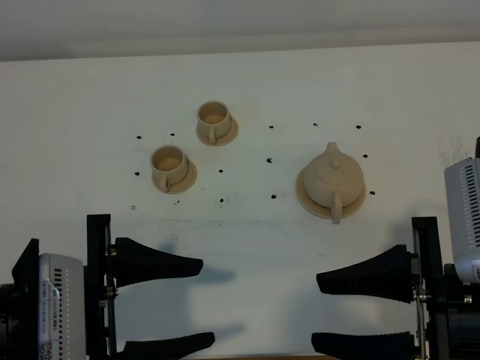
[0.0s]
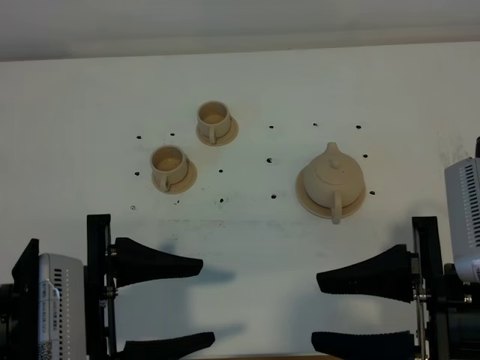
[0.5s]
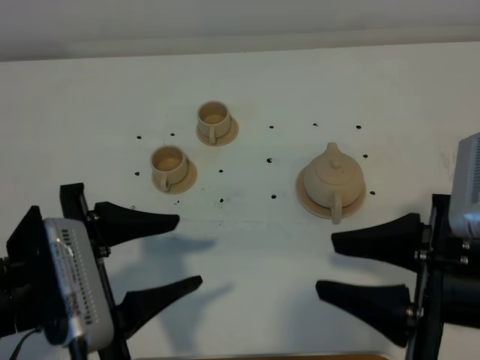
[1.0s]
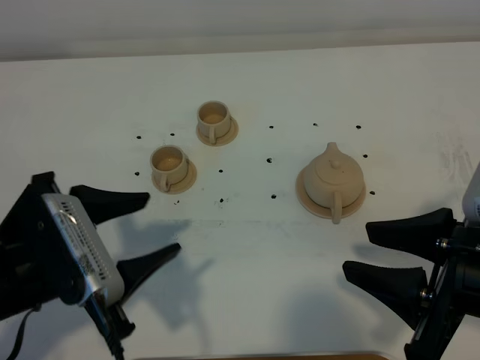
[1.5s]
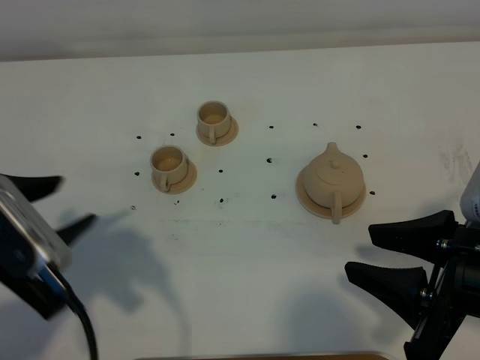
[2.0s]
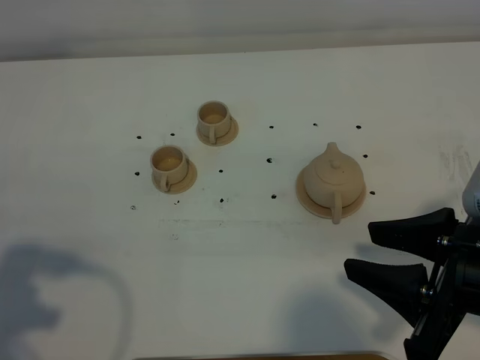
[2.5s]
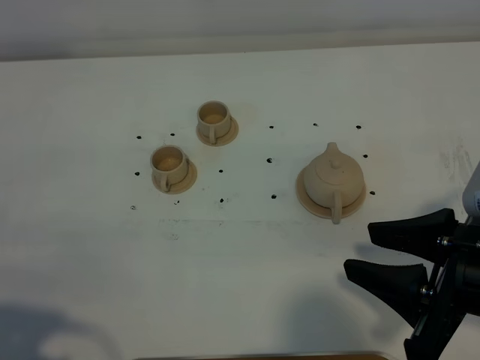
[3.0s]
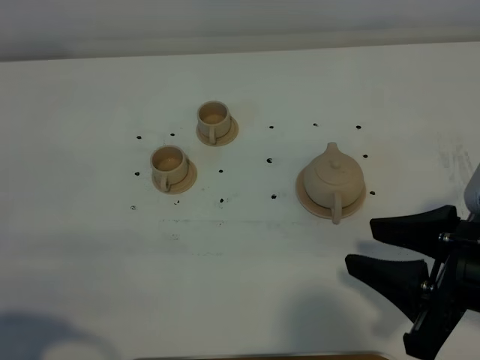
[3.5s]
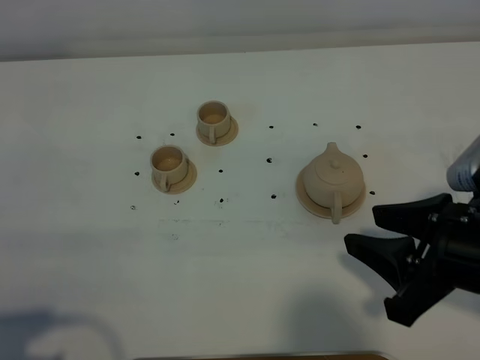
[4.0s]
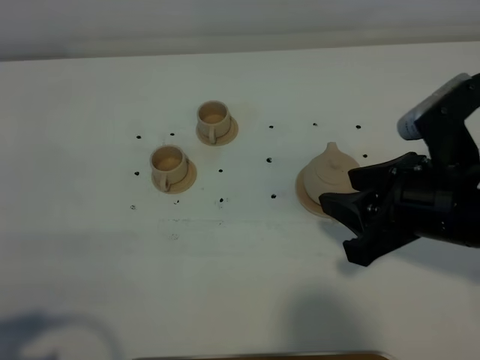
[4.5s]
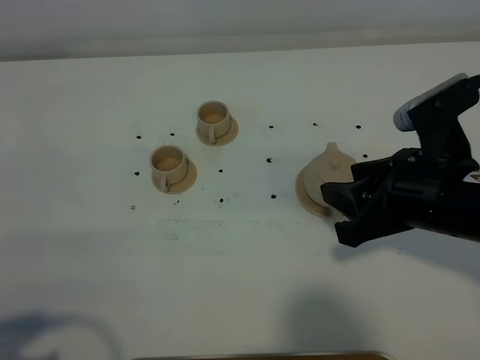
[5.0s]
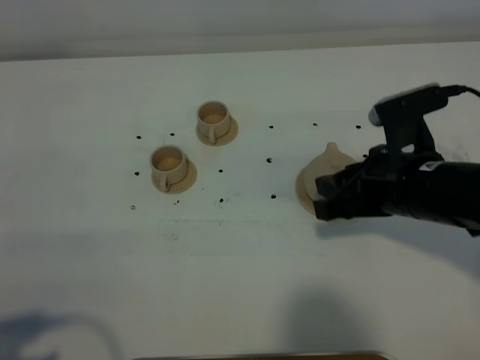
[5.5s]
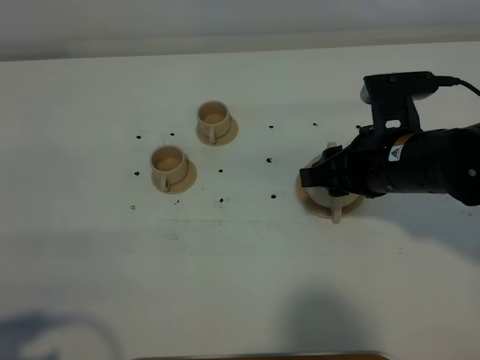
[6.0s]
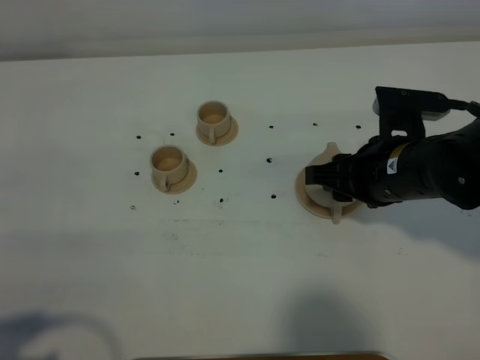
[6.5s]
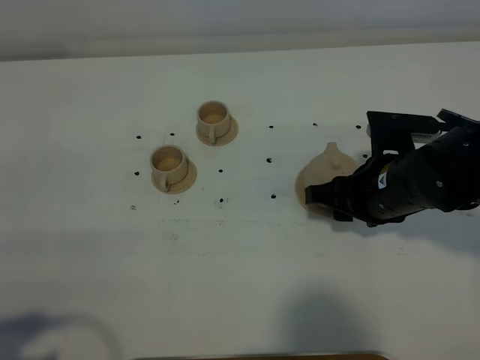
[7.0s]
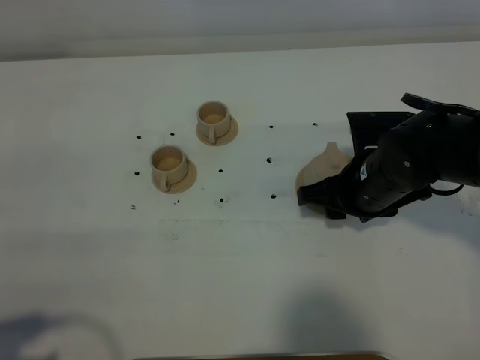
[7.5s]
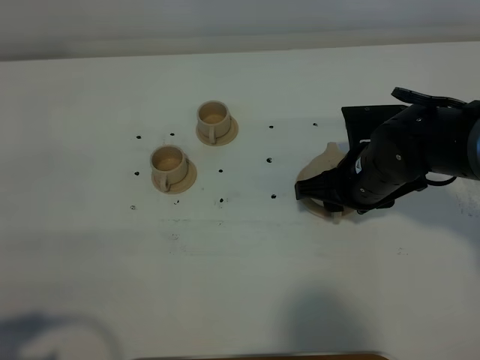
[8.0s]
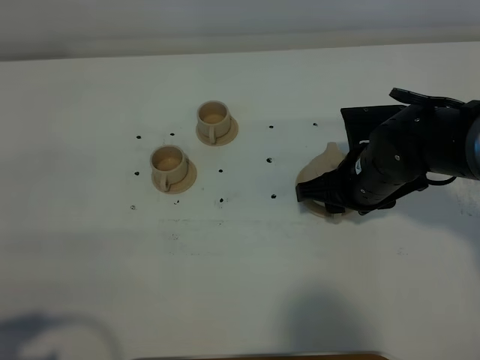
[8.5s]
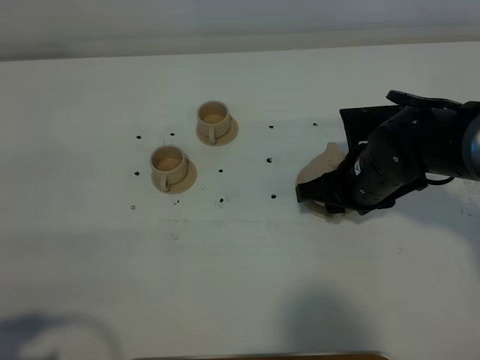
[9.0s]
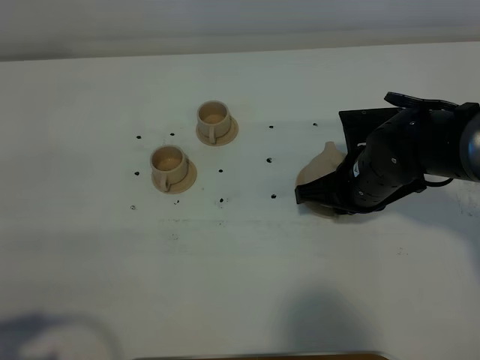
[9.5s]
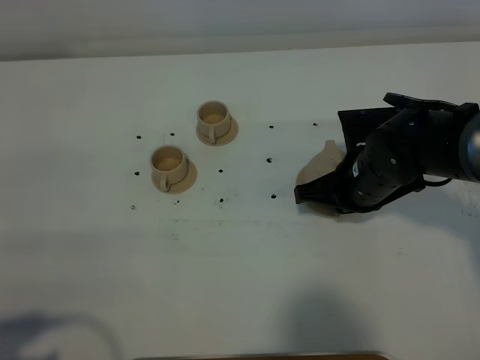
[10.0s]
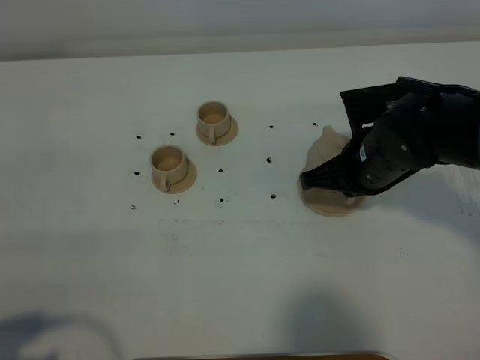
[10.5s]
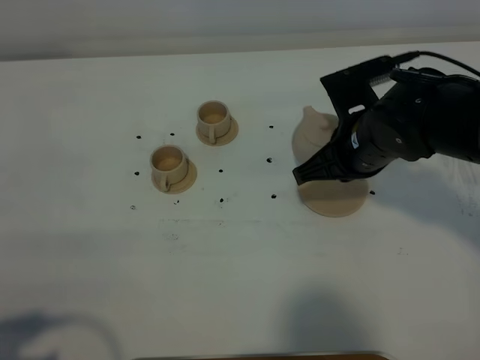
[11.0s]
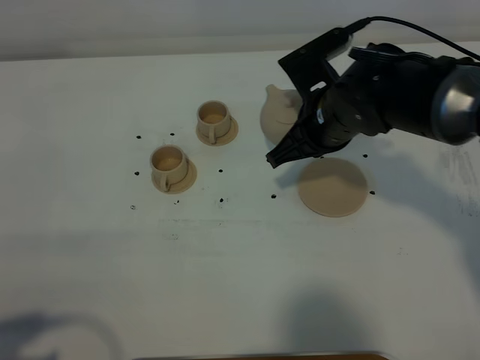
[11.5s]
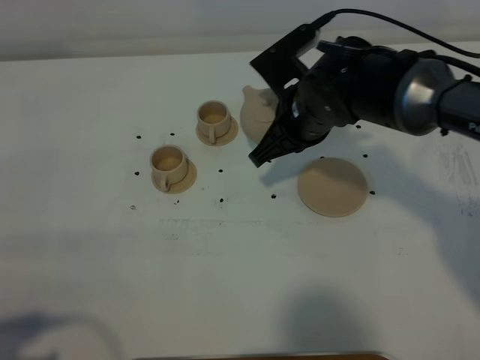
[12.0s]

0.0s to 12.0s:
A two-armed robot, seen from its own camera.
Task of the whole recording: grasp the brown teapot and pour the tea into the two brown teacups one by one, put the brown teapot back in its original place.
Step, 0.0s to 10.0s: Pick up the teapot with the right gripper.
0.0s to 2.0s: The left gripper goes some 5 cm to the left, and closes its fingers.
2.0s to 4.0s: The left gripper goes about 15 cm backward and to the left, and closes.
4.0s to 6.0s: The right gripper shifts some 15 cm forward.
6.0s to 8.0s: The right gripper goes roughly 5 cm downward.
8.0s to 10.0s: The right gripper closes.
10.0s to 12.0s: The right gripper shifts roughly 10 cm to the left, upward and forward.

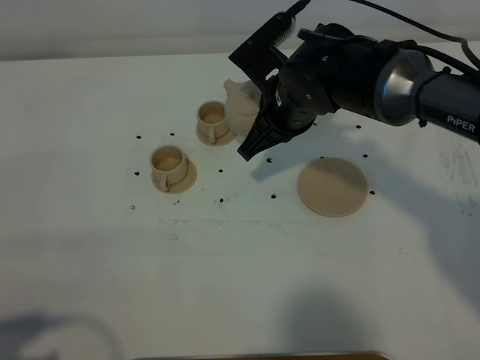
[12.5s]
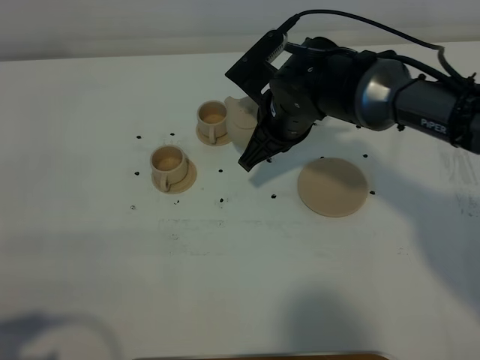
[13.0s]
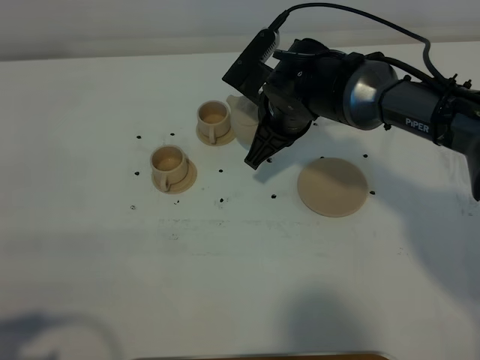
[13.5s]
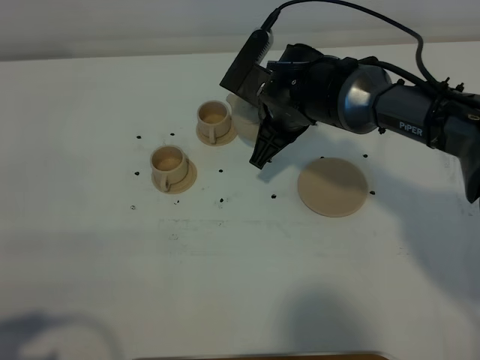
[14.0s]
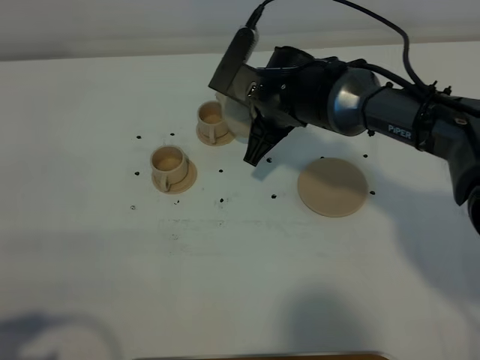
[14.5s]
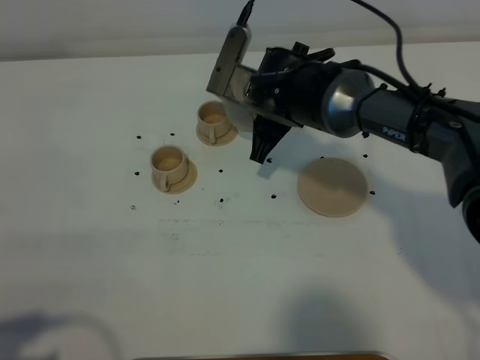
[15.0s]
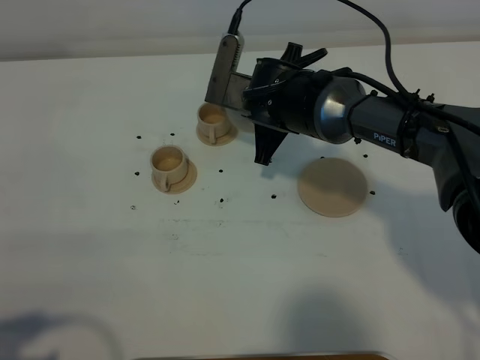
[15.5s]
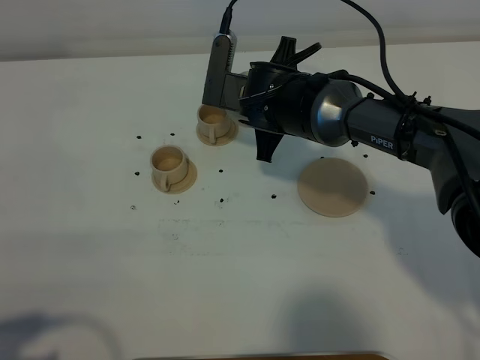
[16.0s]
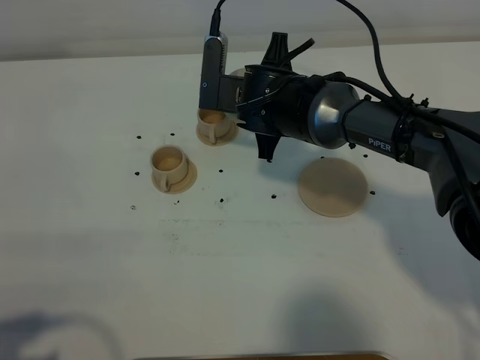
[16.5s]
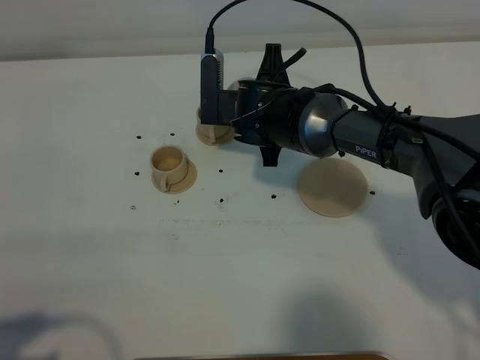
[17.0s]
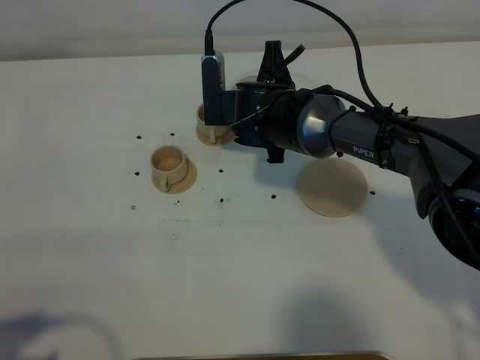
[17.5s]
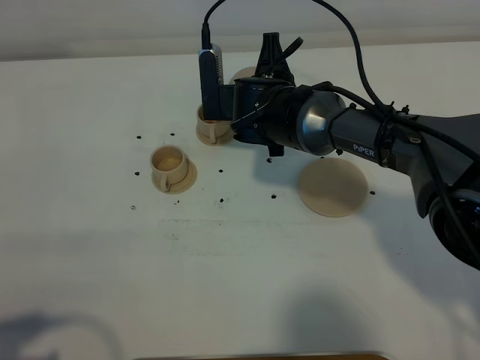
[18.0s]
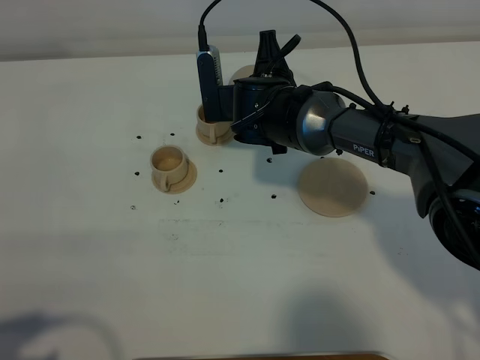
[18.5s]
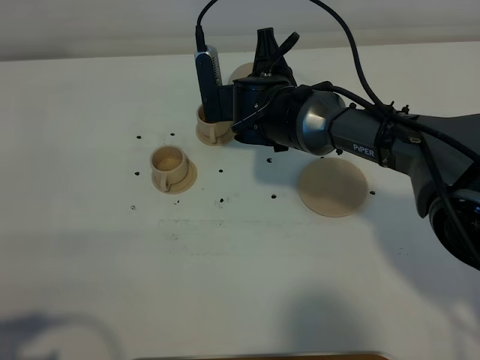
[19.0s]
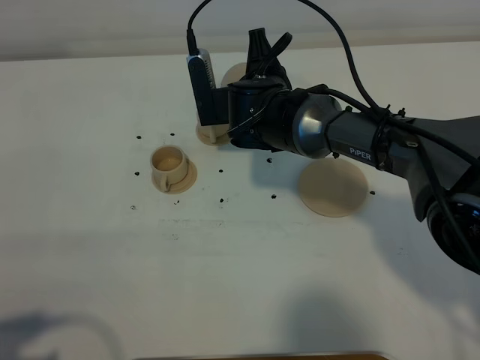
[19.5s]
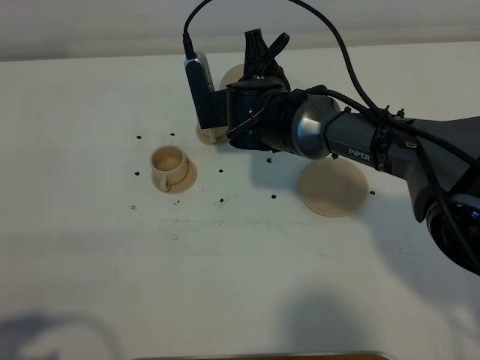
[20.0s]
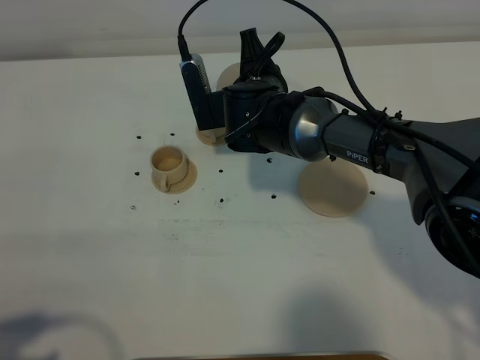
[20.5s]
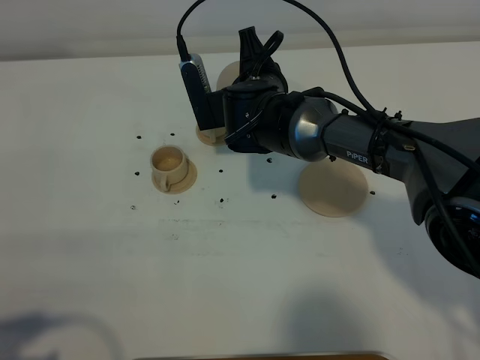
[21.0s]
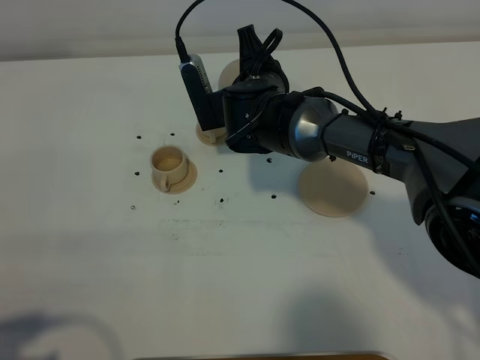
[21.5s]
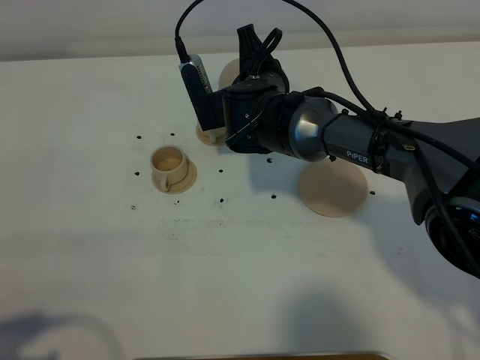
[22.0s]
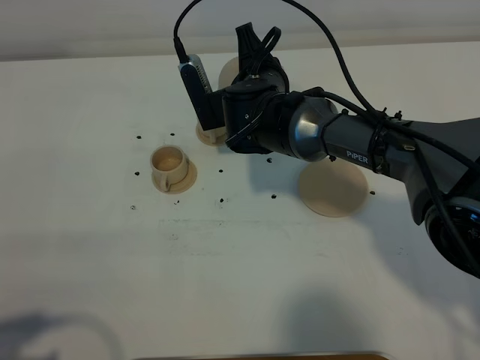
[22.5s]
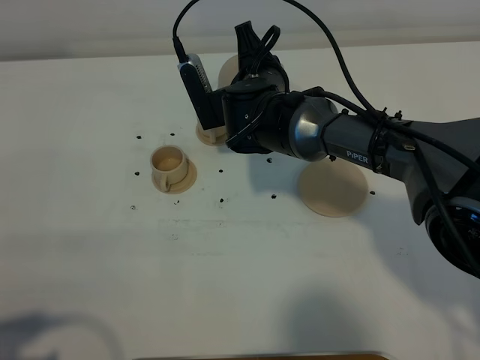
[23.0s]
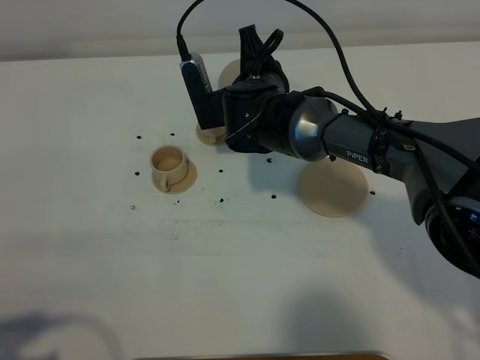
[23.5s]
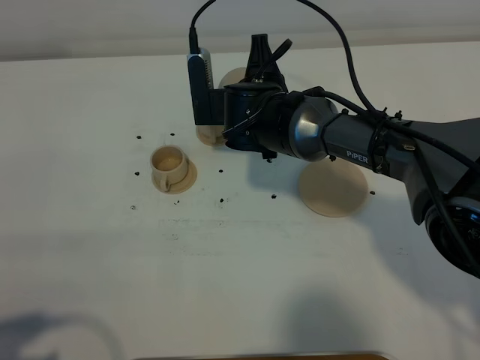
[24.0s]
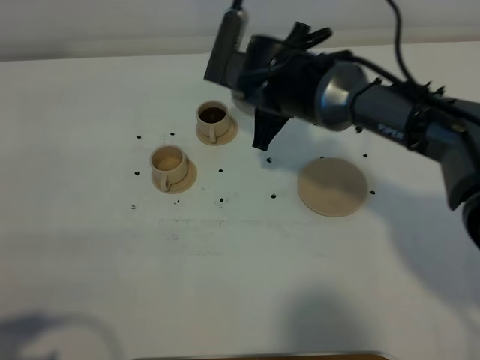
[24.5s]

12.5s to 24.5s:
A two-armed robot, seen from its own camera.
Task of the whole recording: grasp the brown teapot and pour the tea into the two brown teacups one by one, put the brown teapot back in its original place.
12.5s to 14.5s: The grippers stay close to where they were, moving slightly.
16.5s to 18.5s: The grippers make only small movements.
18.5s to 22.5s: There are only small adjustments of the grippers.

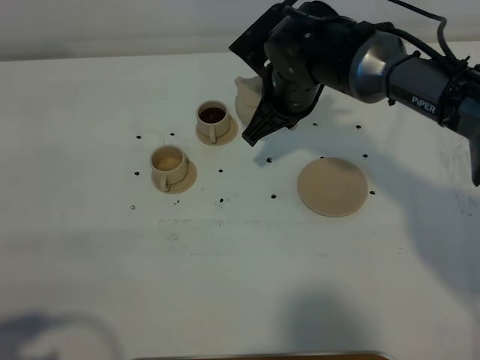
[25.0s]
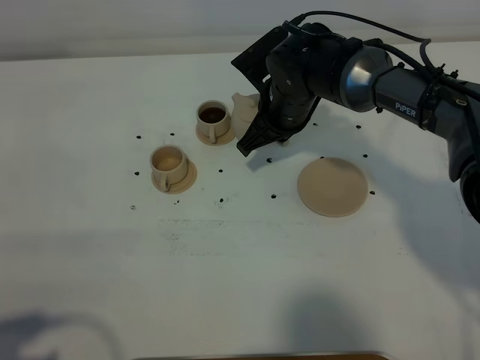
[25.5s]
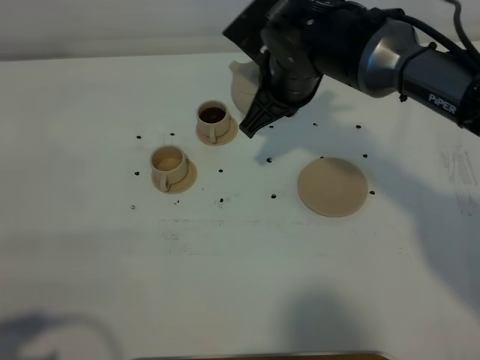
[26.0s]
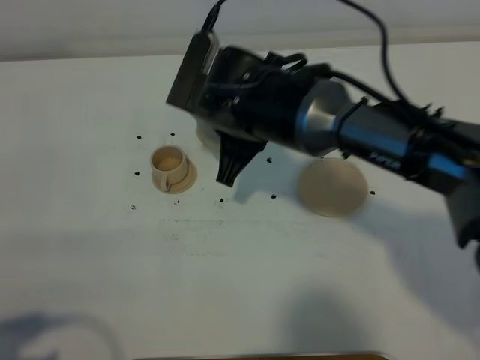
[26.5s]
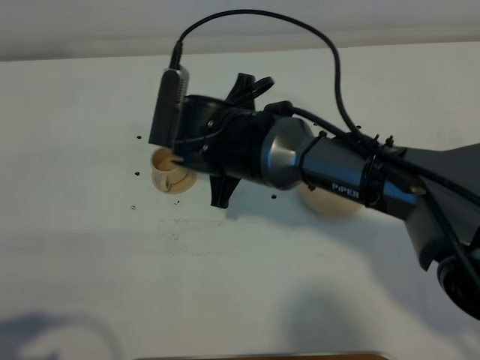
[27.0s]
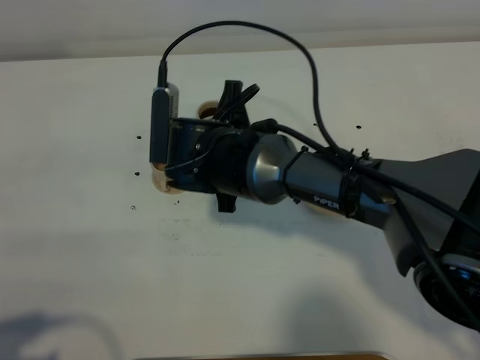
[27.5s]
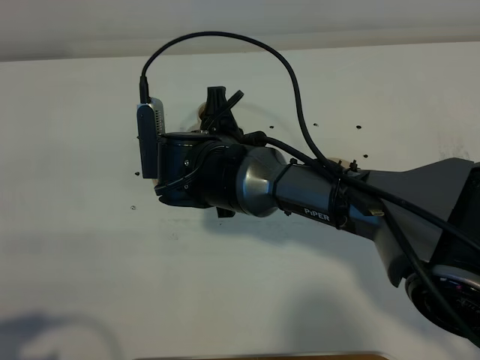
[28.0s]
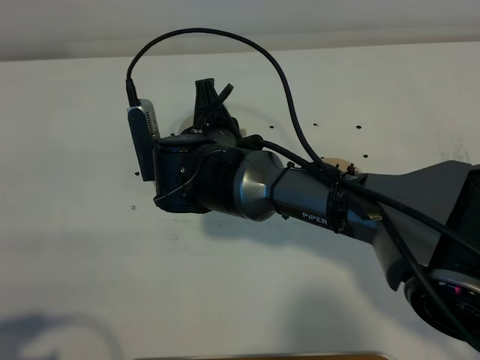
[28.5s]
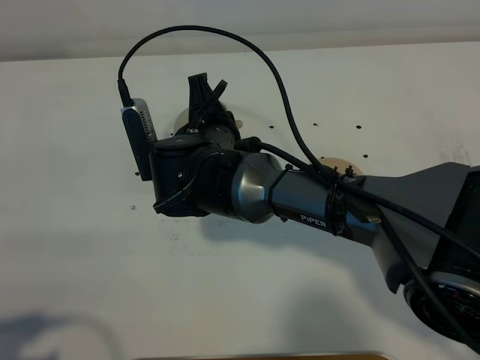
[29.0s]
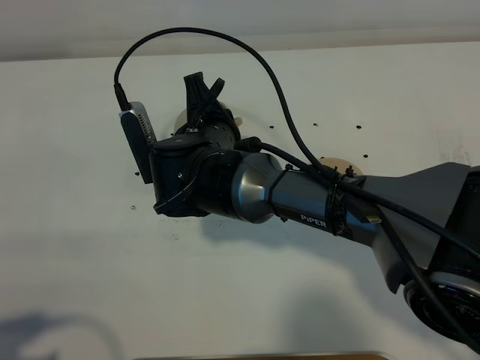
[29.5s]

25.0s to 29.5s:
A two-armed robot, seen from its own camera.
Task of the whole recording: grasp the brown teapot and pour the tea into the two brown teacups one by one, put the brown teapot back in its original place.
25.0s to 27.0s: The right gripper heads to the left and backward, covering approximately 10 cm.
